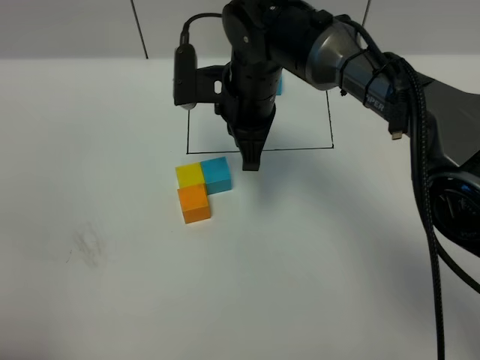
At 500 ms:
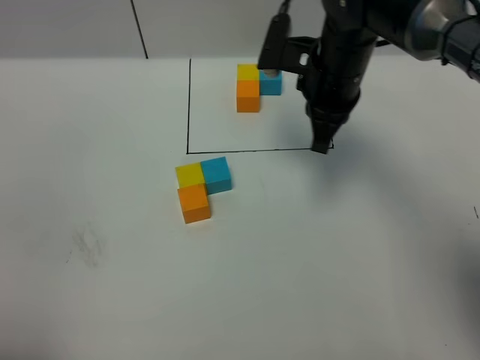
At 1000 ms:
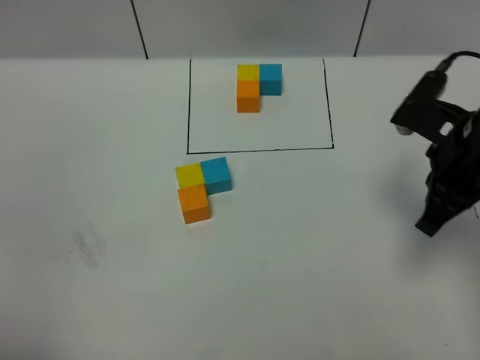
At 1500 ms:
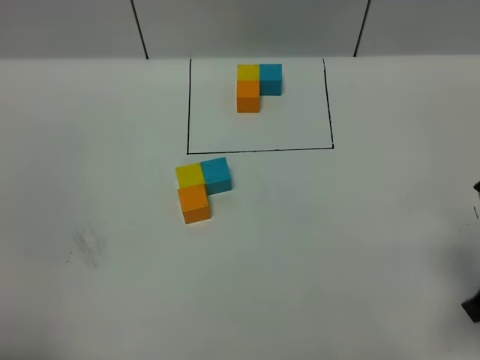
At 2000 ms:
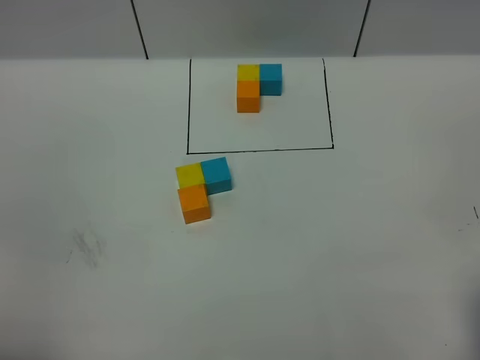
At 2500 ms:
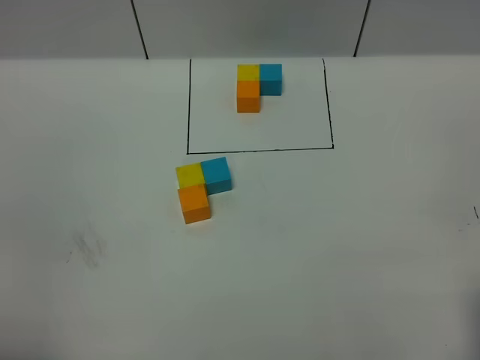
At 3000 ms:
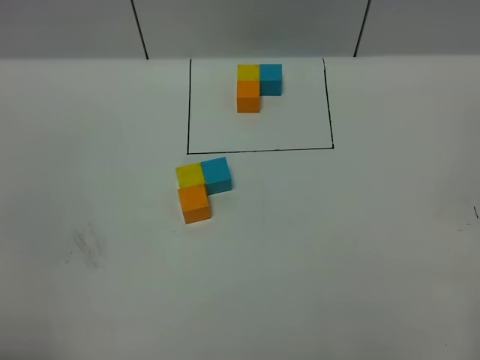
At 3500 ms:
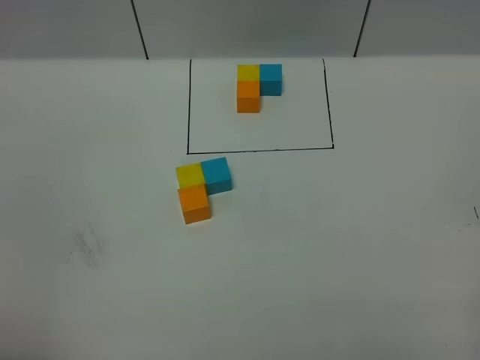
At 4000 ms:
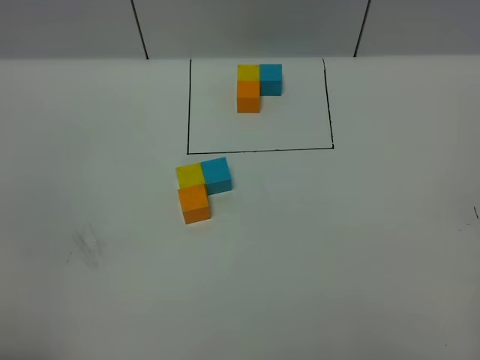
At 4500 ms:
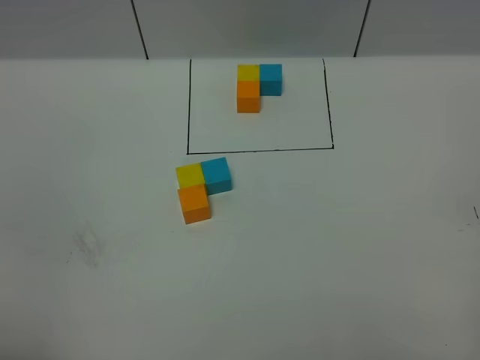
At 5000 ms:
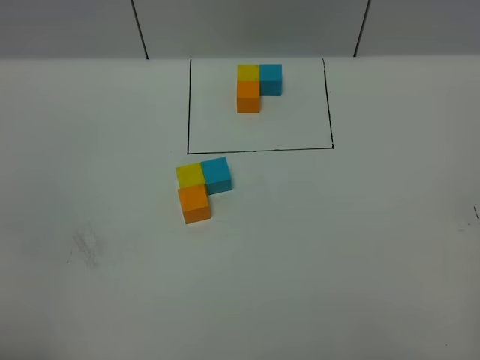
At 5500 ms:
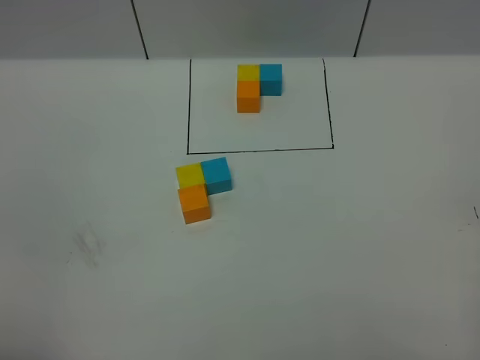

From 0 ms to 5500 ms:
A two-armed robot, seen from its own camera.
Task of the whole recording: According to the building block template in front, assemble the scattered blocks together.
From 0 ms to 2000 ms: The right gripper heads backward and to the right, covering some 40 cm.

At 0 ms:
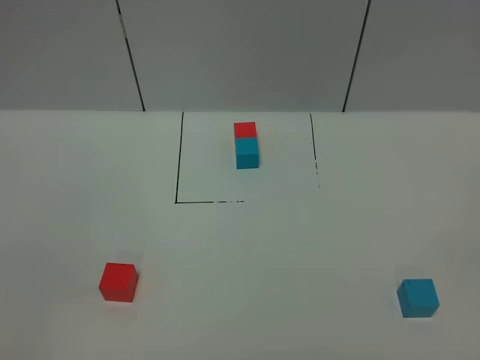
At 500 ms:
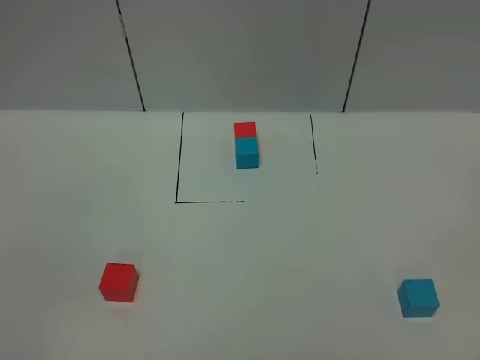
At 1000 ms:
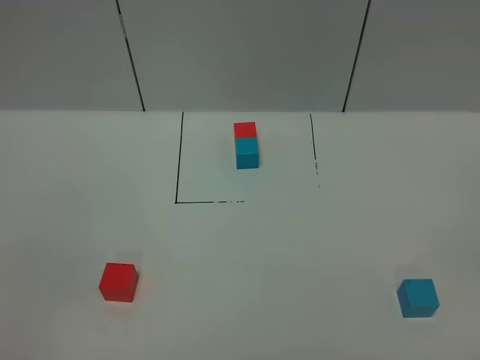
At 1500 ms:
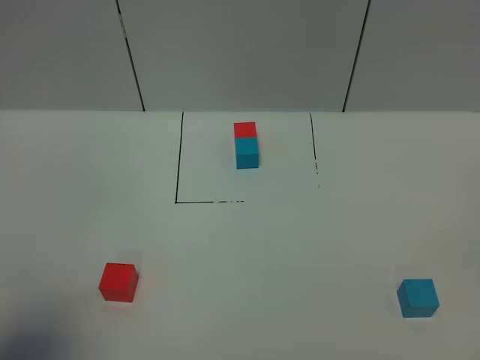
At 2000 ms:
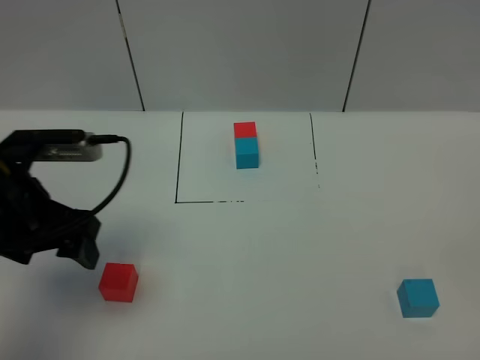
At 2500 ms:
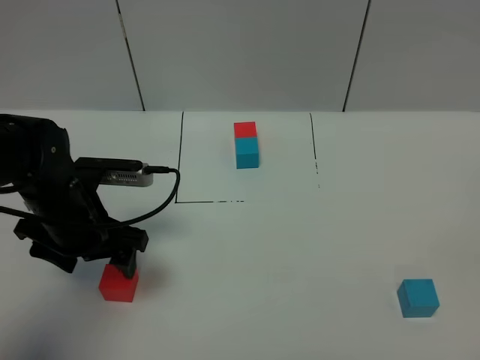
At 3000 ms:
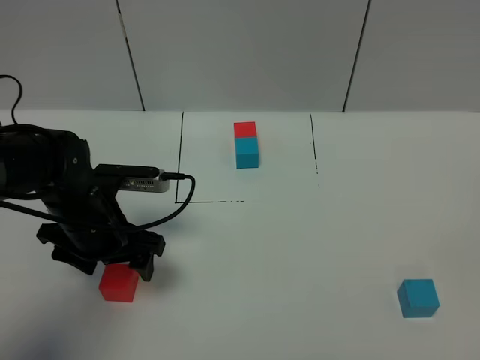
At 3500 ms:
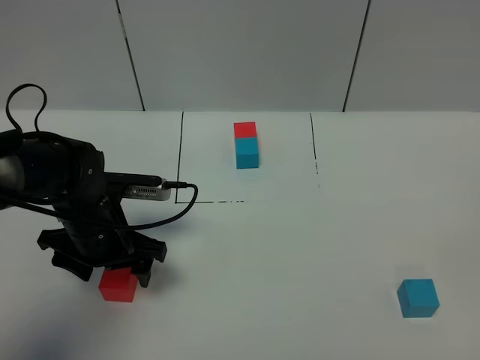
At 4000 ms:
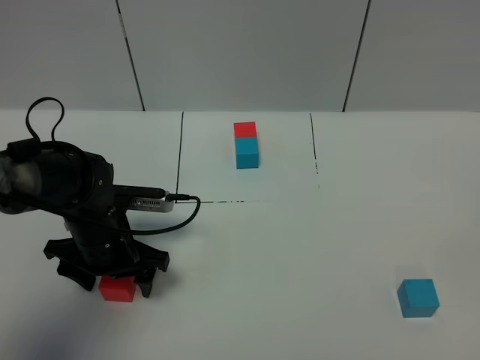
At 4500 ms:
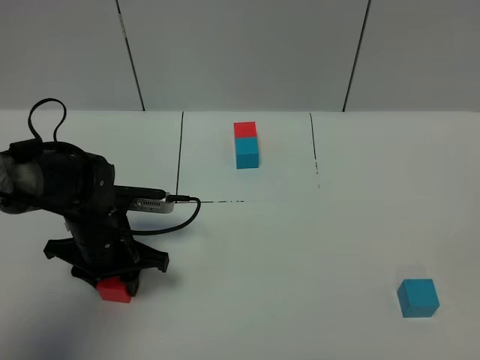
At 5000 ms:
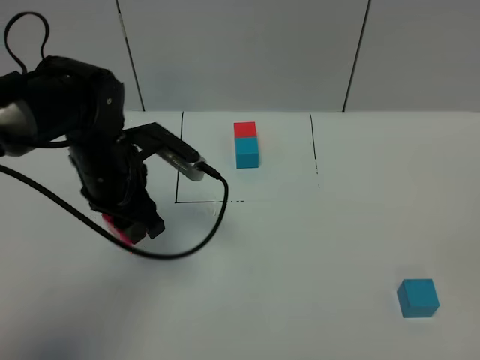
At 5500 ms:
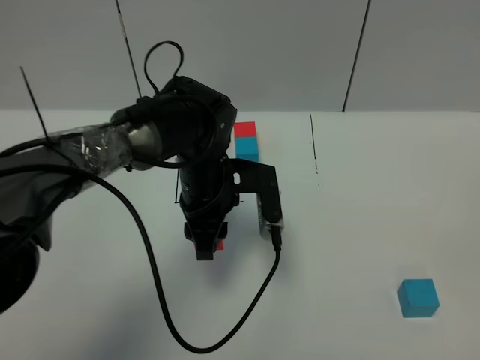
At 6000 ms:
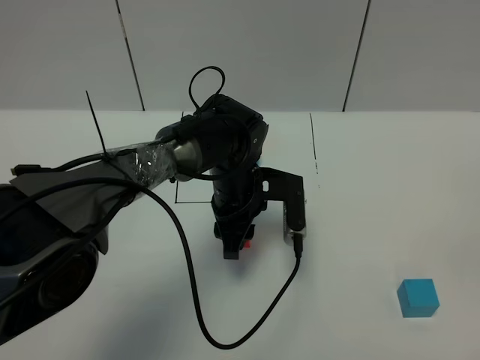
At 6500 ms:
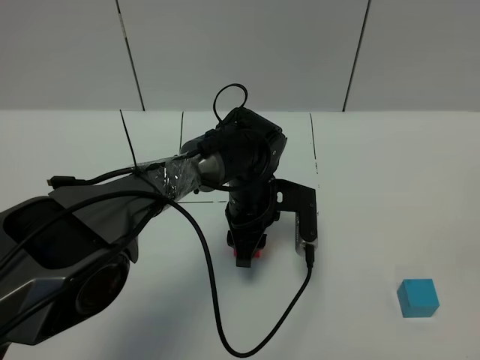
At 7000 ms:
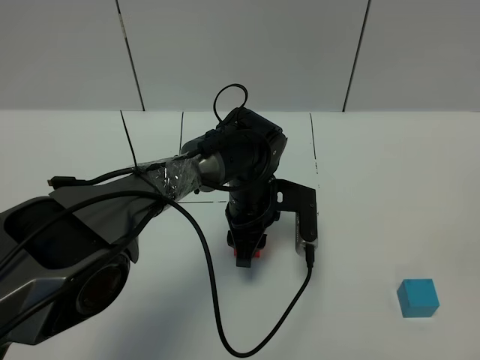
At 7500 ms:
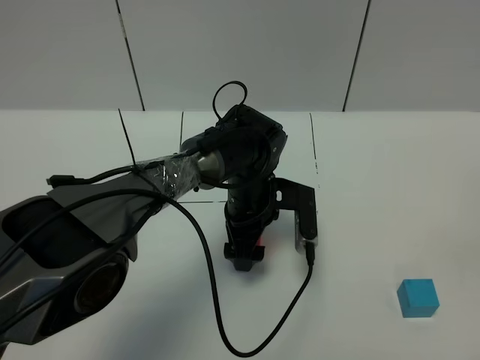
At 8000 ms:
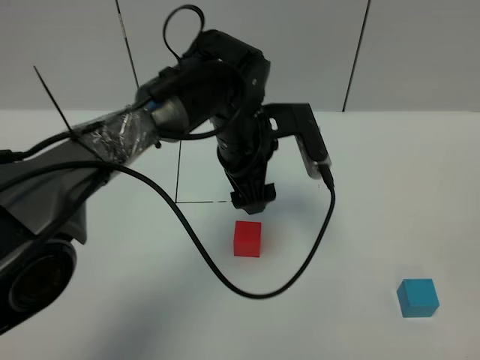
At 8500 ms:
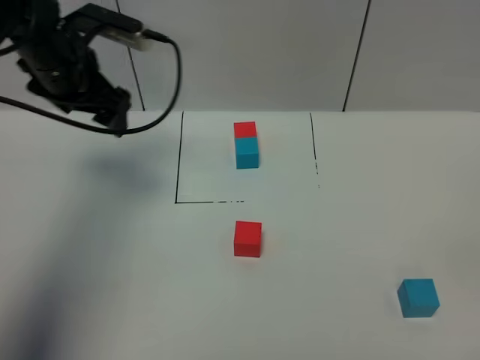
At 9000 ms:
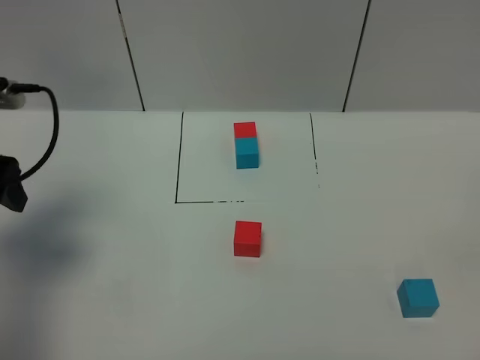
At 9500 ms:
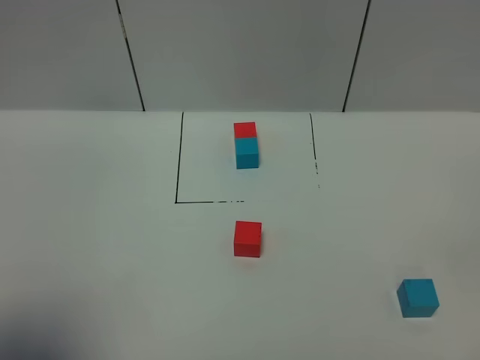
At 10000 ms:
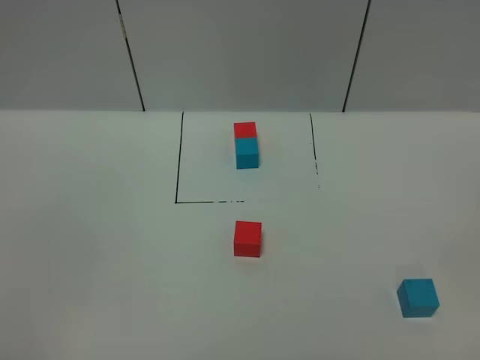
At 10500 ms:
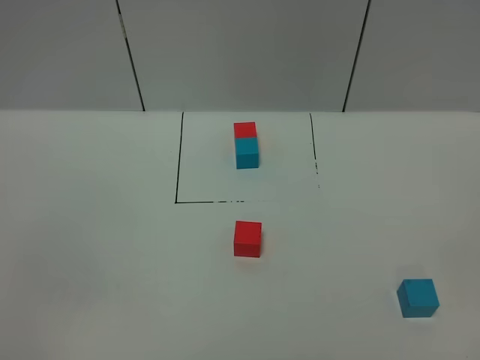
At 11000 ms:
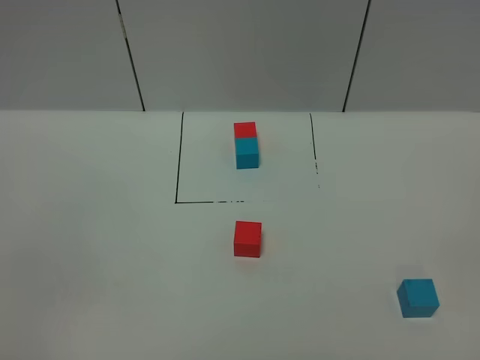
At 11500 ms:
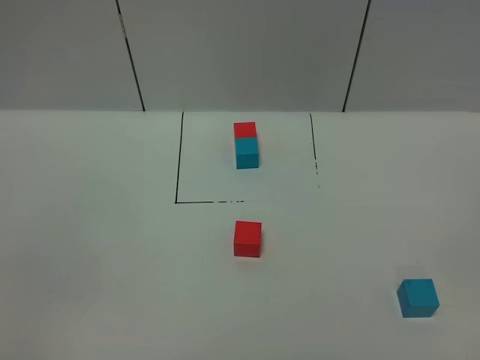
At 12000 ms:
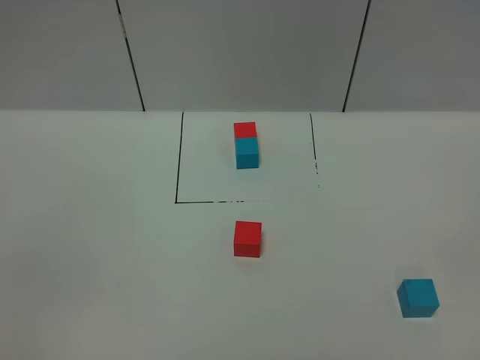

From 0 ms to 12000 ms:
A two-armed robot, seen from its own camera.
Task of the whole recording: According to the building block template in front, assemble the scattered blocks together.
Step, from 1500 ms to 7500 ms: Put the red cube in the center of the table.
From 0 ms to 2000 ms: The left gripper shifts approximately 30 cm forward.
From 2000 ms to 4000 ms: The left gripper goes some 15 cm downward.
From 4000 ms to 6000 ms: The left gripper shifts about 20 cm to the right, and closes up.
From 6000 ms to 8000 ms: The left gripper goes approximately 10 cm upward, and opens its fingers.
From 8000 ms to 10000 ms: The left gripper goes roughly 50 cm backward and to the left.

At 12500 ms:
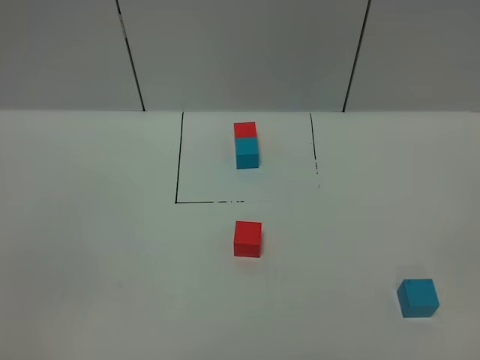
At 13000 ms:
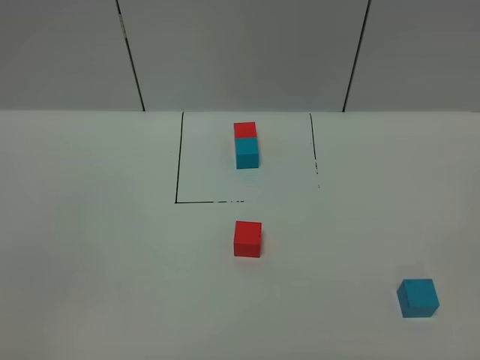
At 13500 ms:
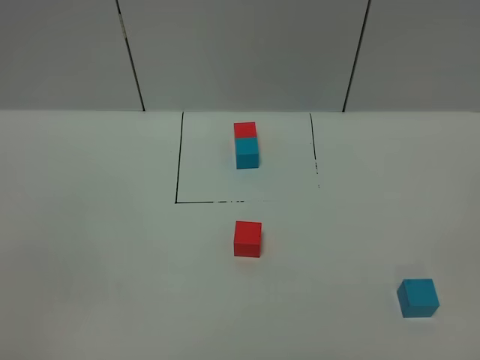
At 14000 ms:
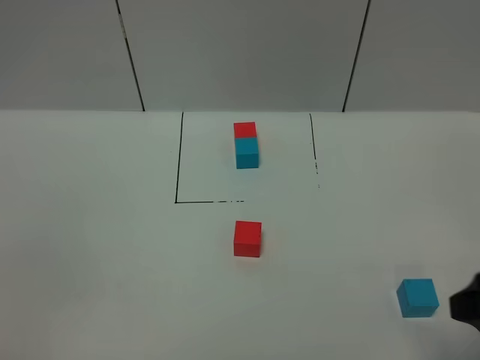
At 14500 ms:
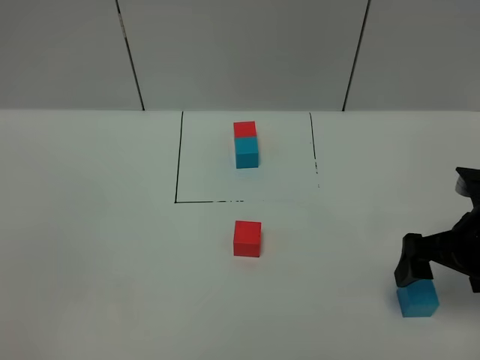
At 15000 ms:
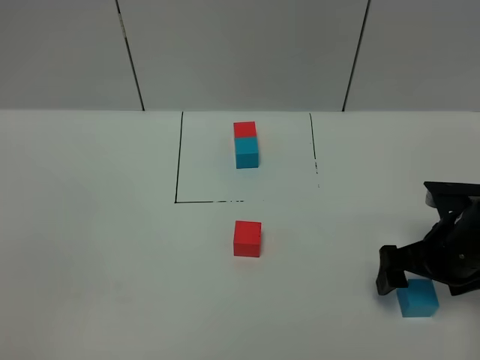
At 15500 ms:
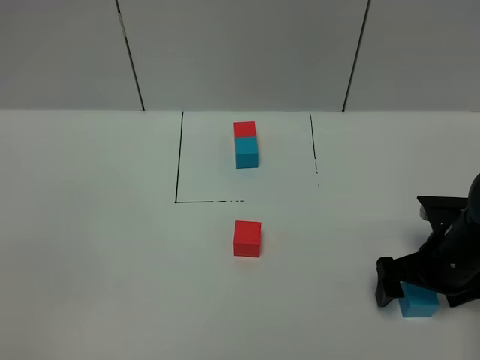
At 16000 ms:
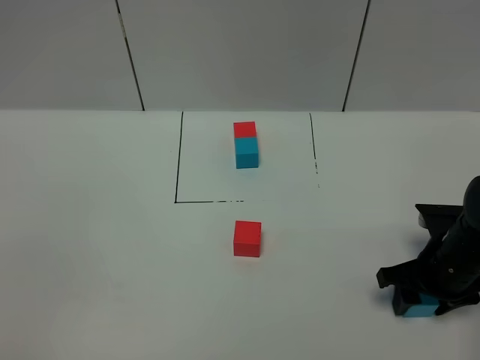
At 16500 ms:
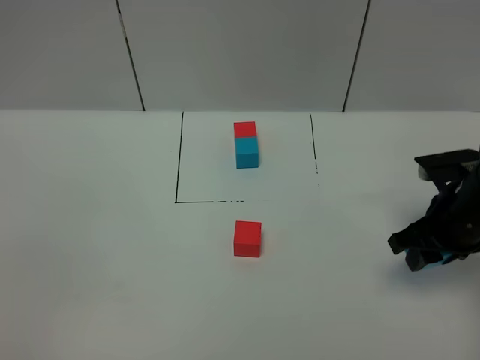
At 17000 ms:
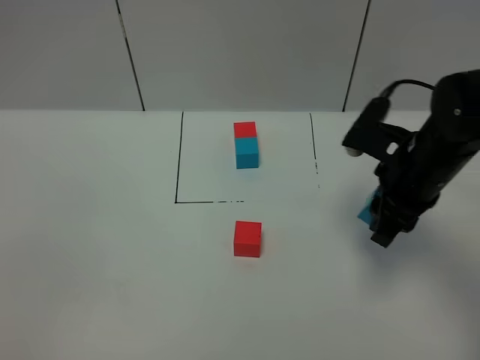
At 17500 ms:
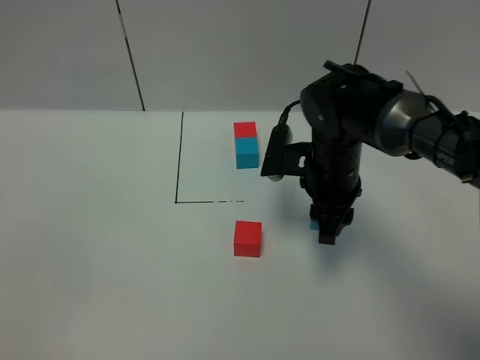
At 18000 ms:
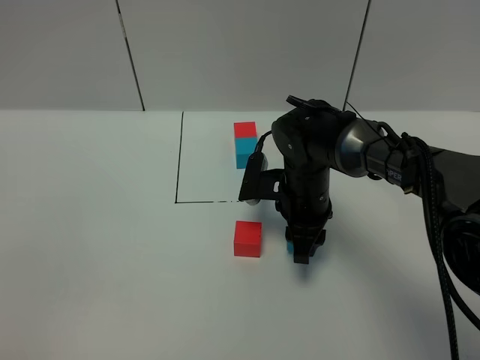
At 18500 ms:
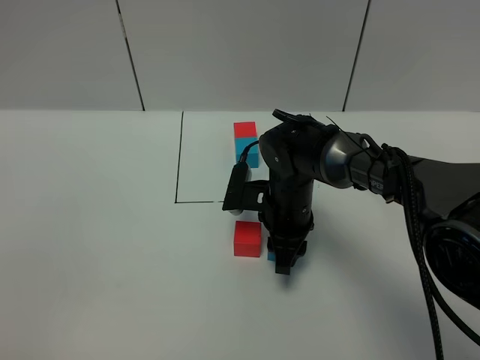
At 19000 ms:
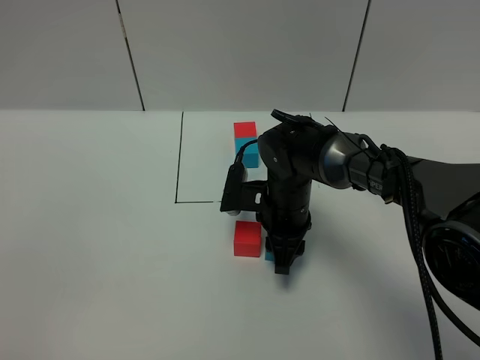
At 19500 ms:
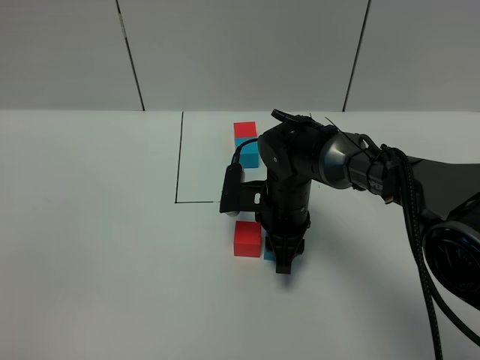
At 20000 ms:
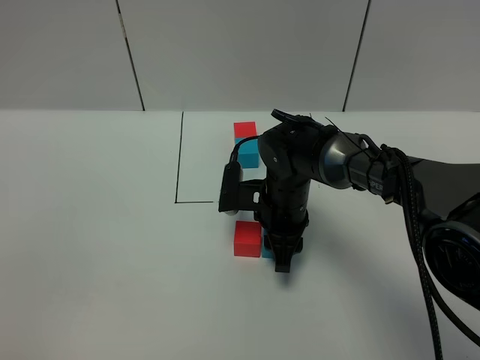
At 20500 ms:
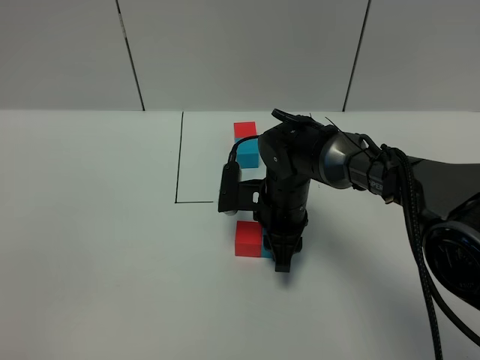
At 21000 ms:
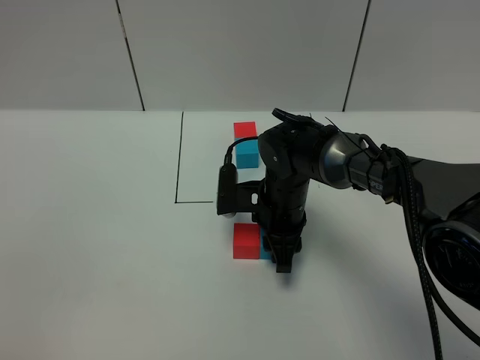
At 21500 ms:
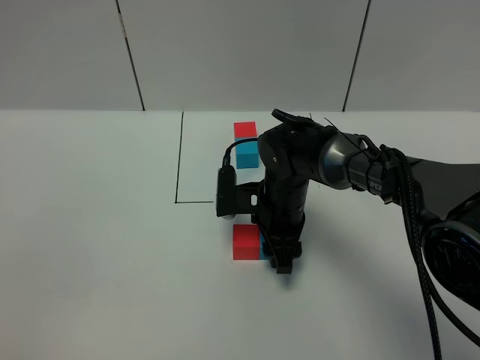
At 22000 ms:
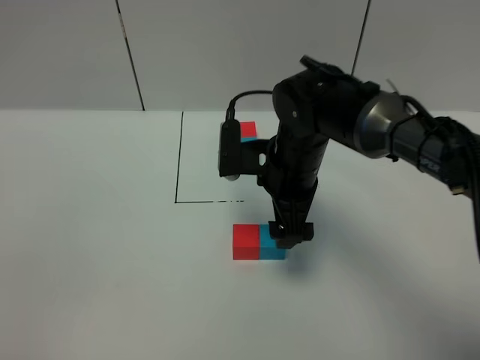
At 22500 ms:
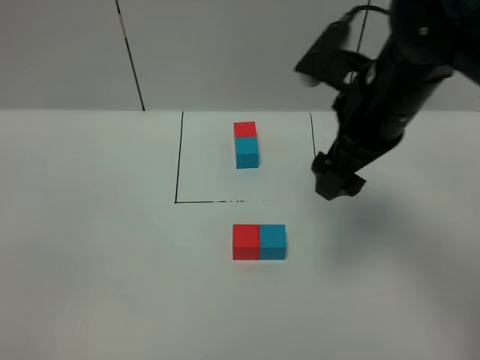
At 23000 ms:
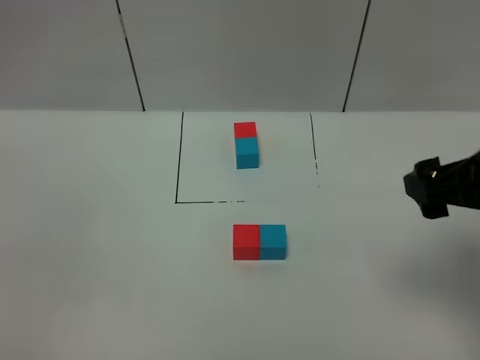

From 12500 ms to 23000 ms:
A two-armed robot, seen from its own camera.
Task of the whole recording: According to the building block template in front, assemble the scattered blocks together.
Step, from 12500 ms to 21500 ms: Put the blue cube on the right of the red cube.
From 12500 ms to 14500 ms: The right gripper is displaced forward by roughly 30 cm.
From 14500 ms to 16500 ms: The right gripper goes downward and returns, about 10 cm each way, and closes its fingers.
From 16500 ms to 19000 ms: The right gripper heads to the left, covering about 20 cm.
From 19000 ms to 21000 ms: There are only small adjustments of the grippers.
From 21000 ms to 23000 ms: The right gripper moves upward, to the right and backward, about 30 cm, and opens its fingers.
